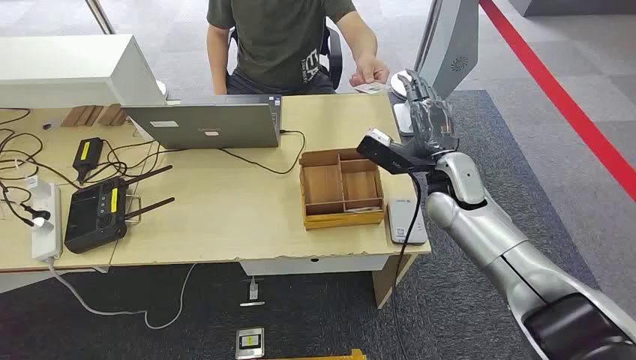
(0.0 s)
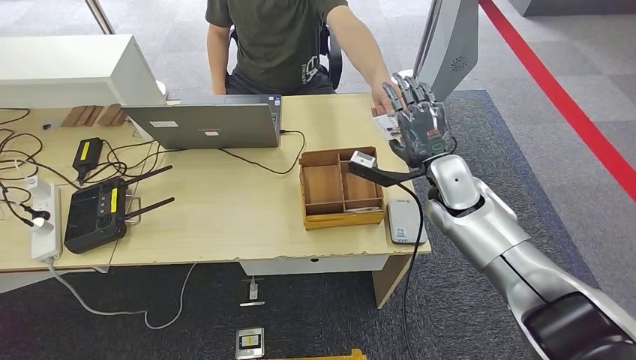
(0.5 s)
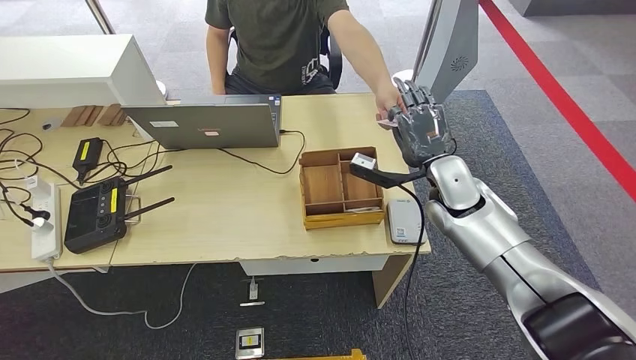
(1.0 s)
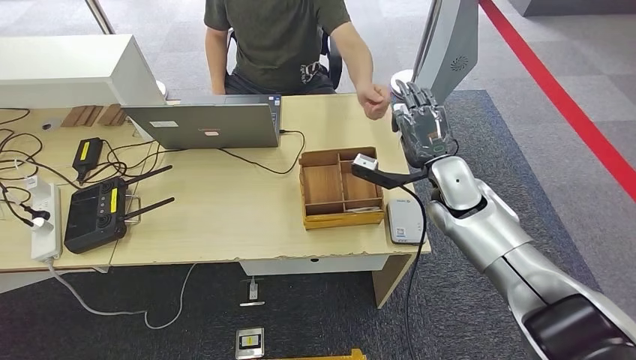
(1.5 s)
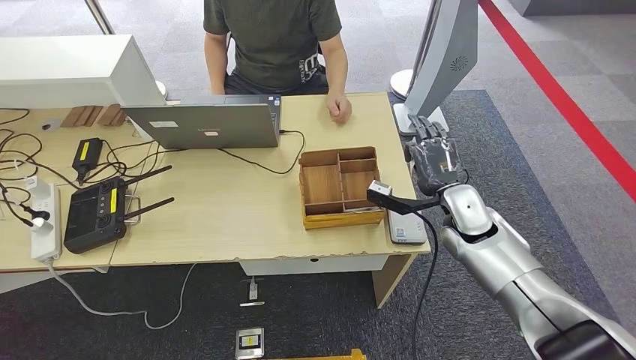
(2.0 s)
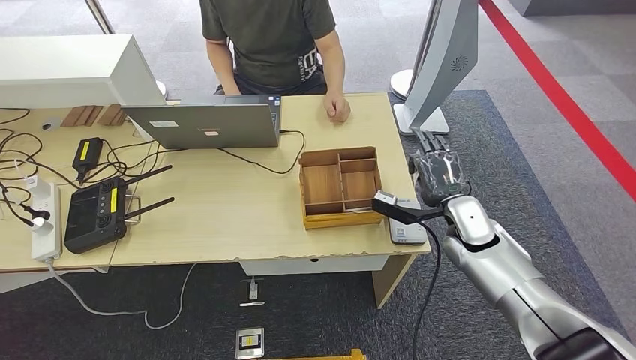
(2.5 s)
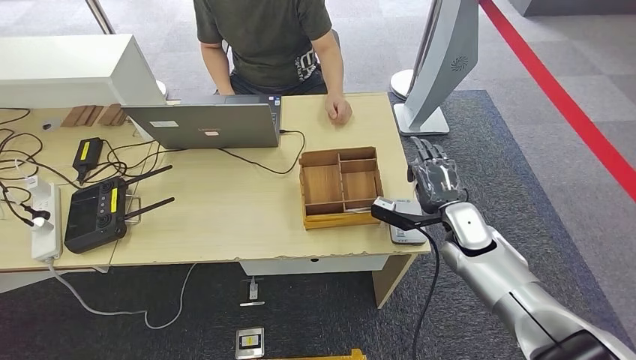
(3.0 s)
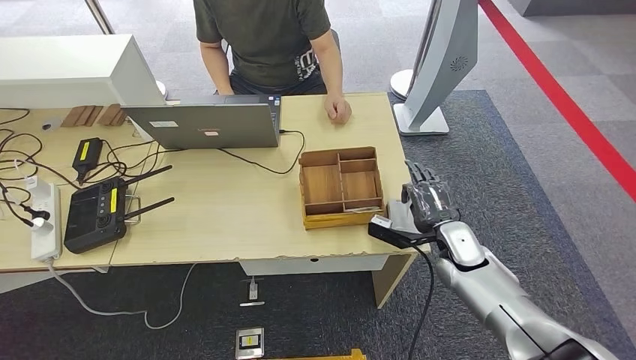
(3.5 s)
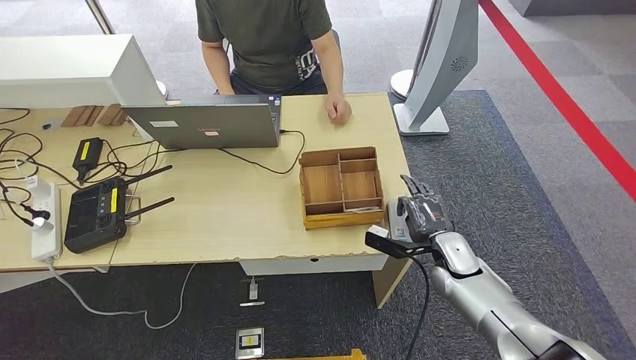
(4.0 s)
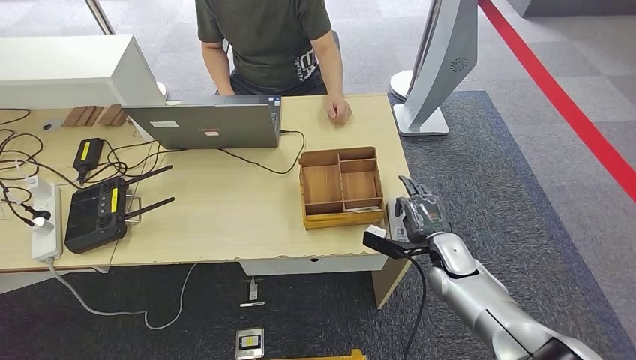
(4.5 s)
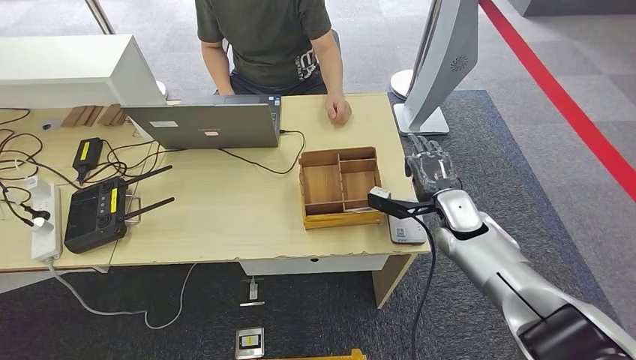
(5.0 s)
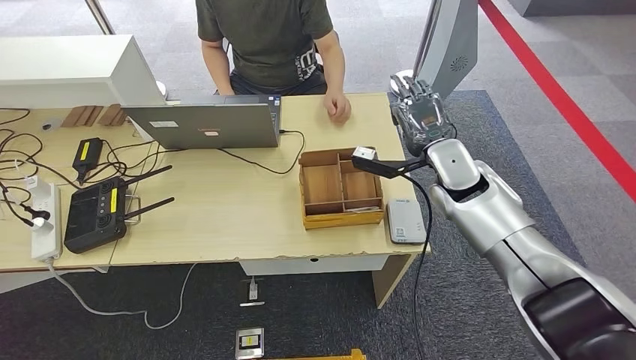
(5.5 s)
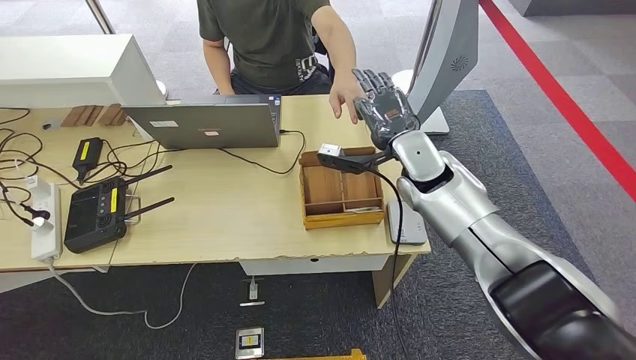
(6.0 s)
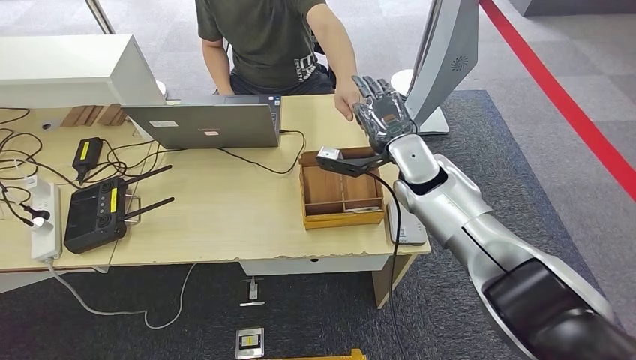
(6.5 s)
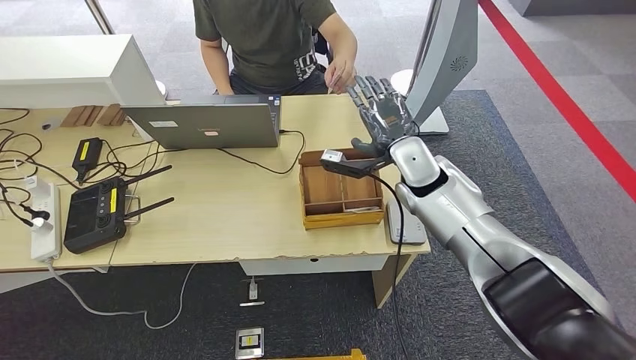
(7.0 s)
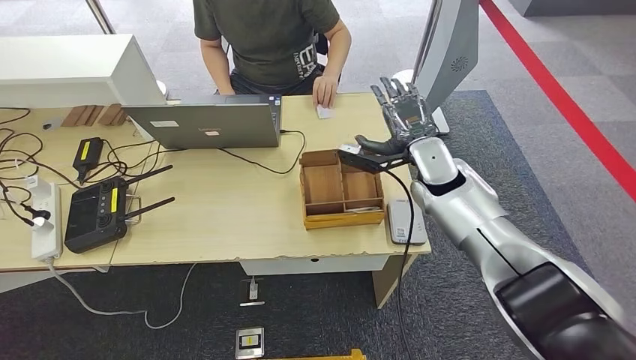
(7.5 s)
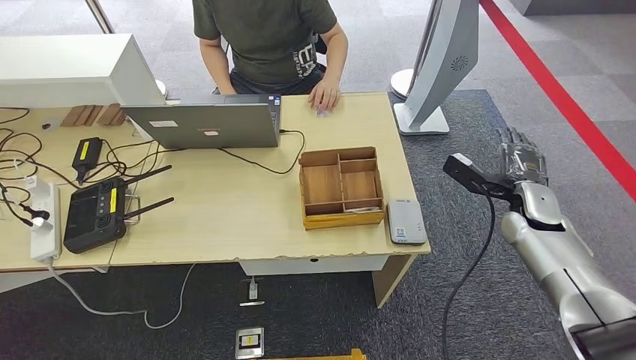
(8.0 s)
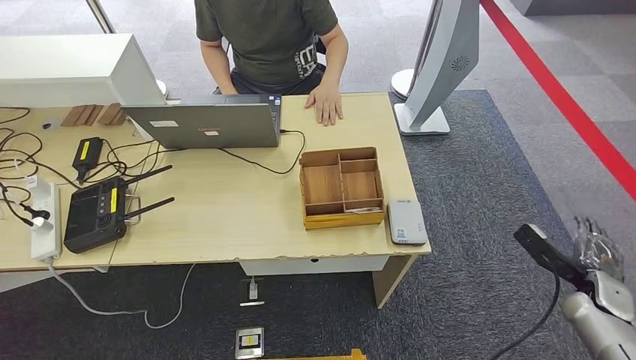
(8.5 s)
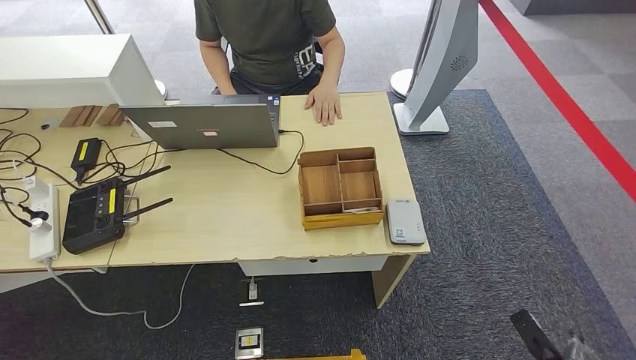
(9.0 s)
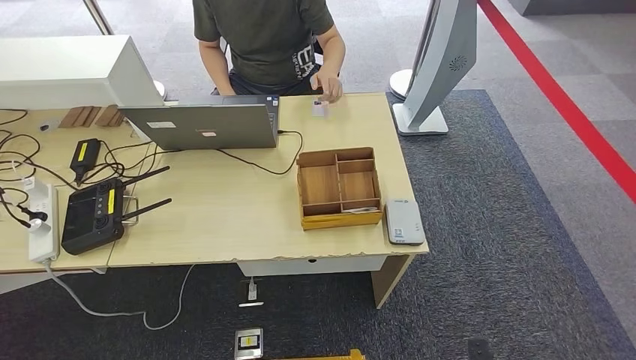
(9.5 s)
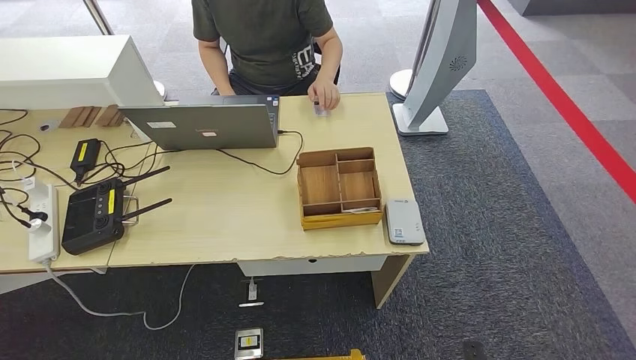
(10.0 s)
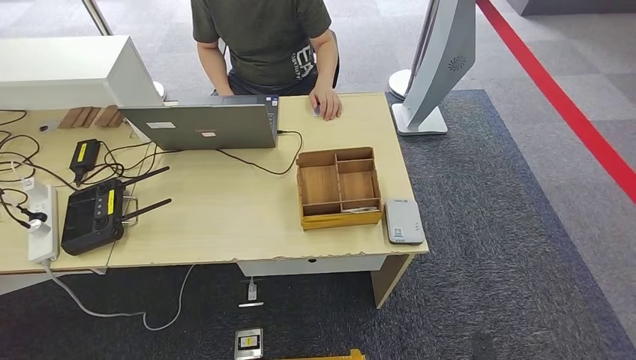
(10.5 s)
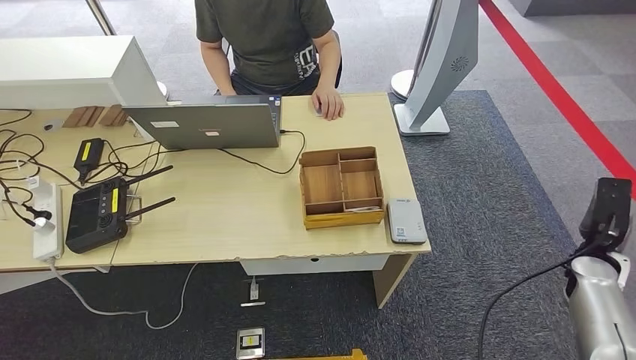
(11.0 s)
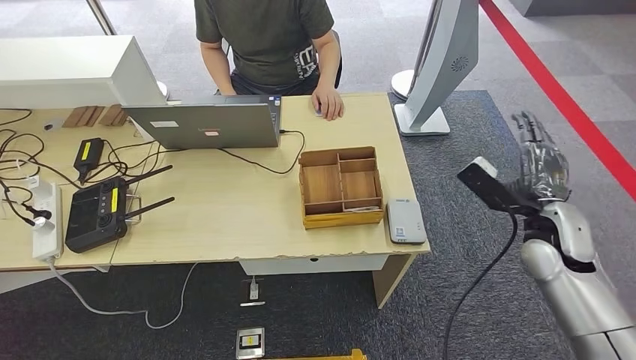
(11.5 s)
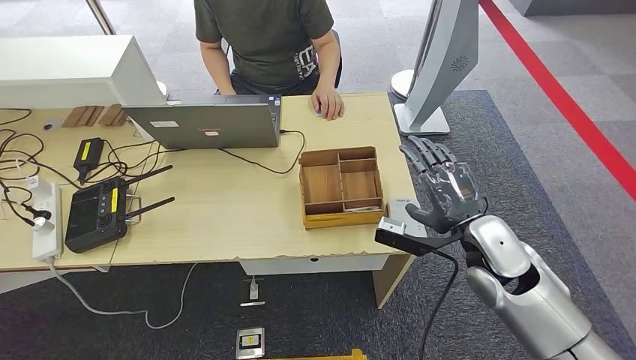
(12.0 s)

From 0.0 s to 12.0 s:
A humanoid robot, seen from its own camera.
Step, from 0.0 s to 1.5 s: Take the ID card from the person's hand.
Step, from 2.0 s to 4.0 s: Place the ID card on the card reader.
Step, from 4.5 s to 7.0 s: Hand the ID card to the person.
From 2.0 s to 4.0 s: The right hand is displaced downward by roughly 10 cm.
From 4.0 s to 6.0 s: The right hand travels upward, forward and to the left by some 25 cm.
From 6.0 s to 8.0 s: The right hand is displaced to the right by some 20 cm.
From 8.0 s to 10.0 s: The right hand travels backward and downward by approximately 40 cm.
From 10.0 s to 12.0 s: The right hand is displaced upward and forward by about 40 cm.

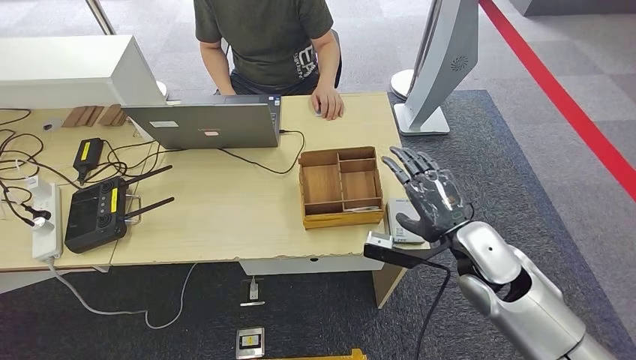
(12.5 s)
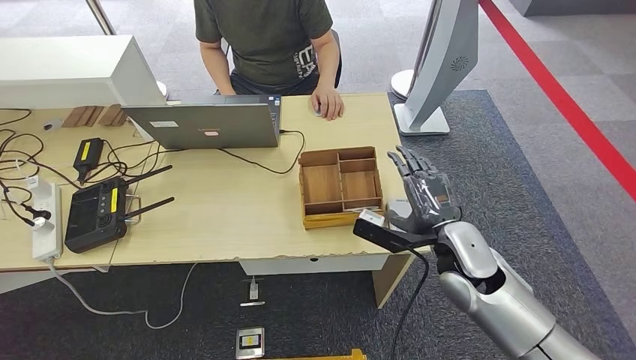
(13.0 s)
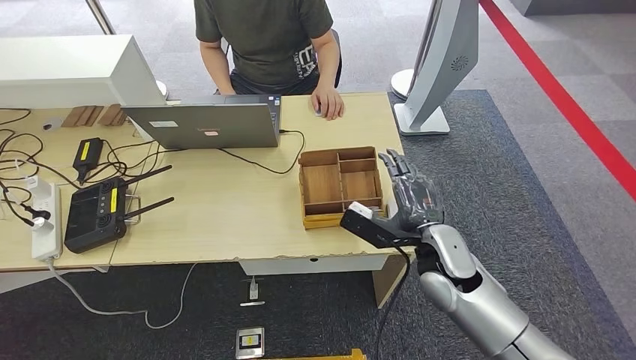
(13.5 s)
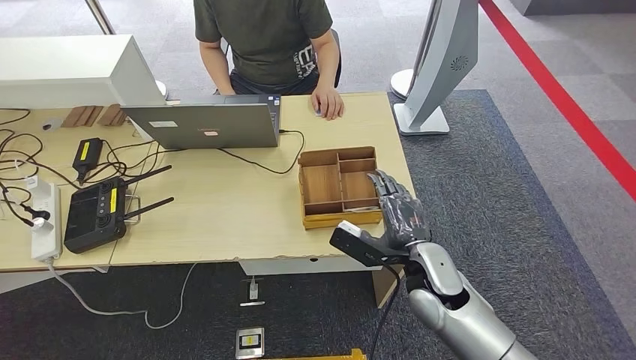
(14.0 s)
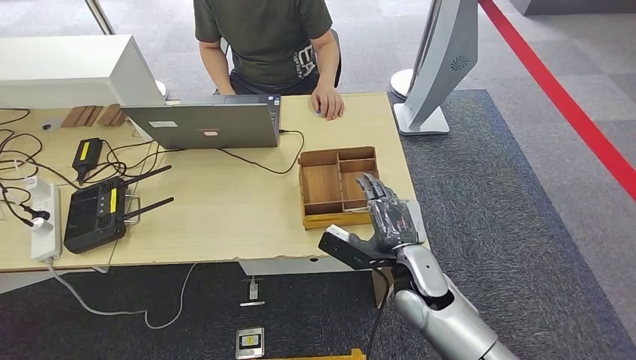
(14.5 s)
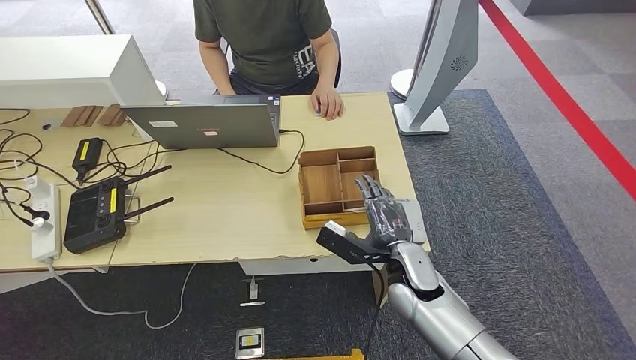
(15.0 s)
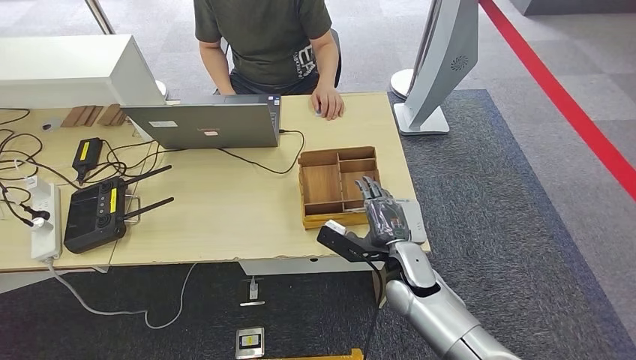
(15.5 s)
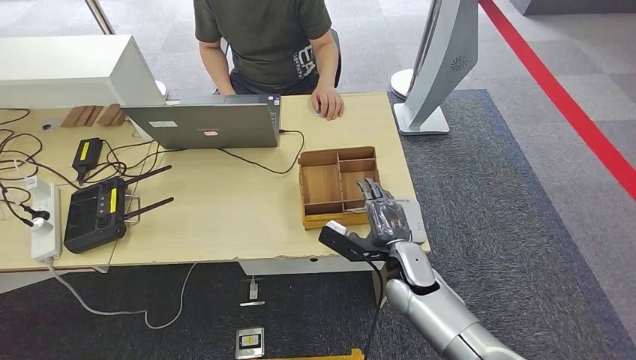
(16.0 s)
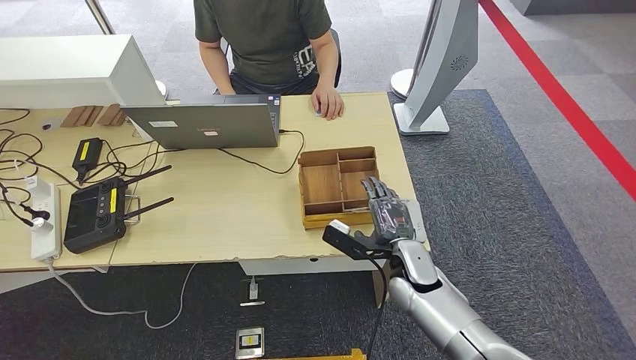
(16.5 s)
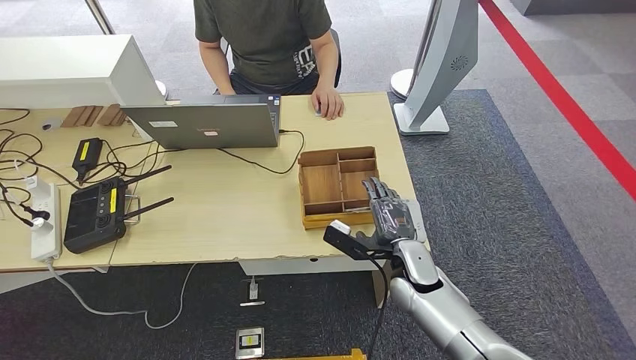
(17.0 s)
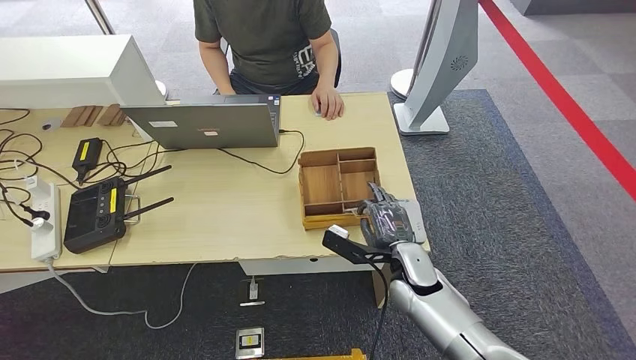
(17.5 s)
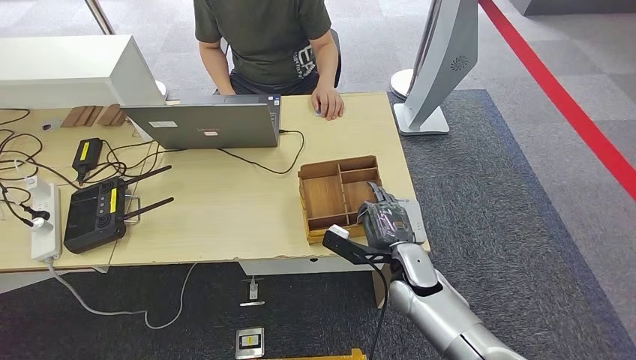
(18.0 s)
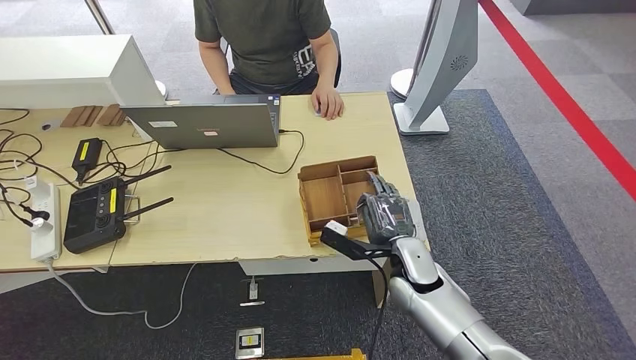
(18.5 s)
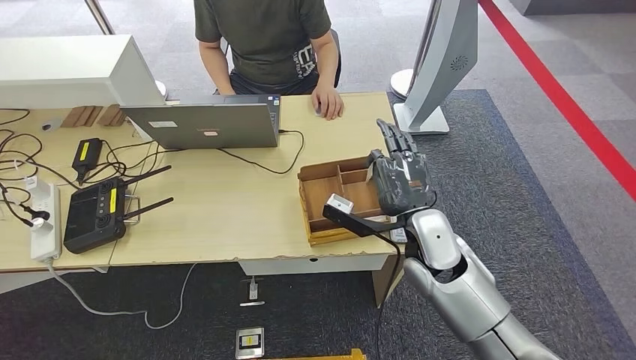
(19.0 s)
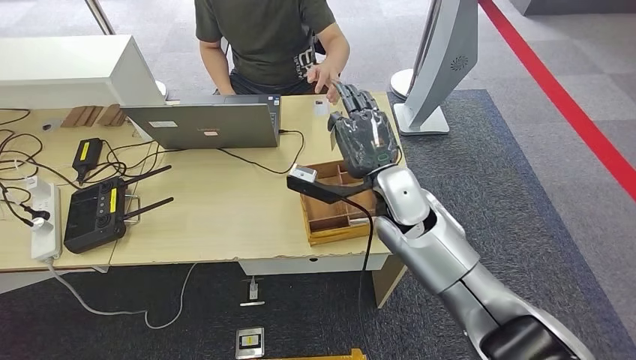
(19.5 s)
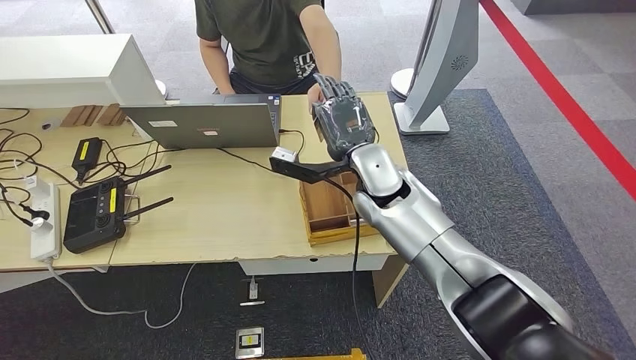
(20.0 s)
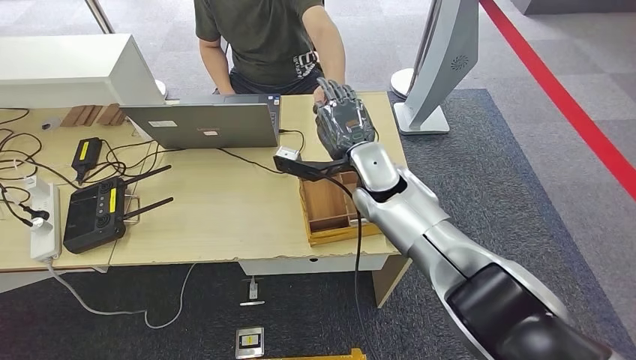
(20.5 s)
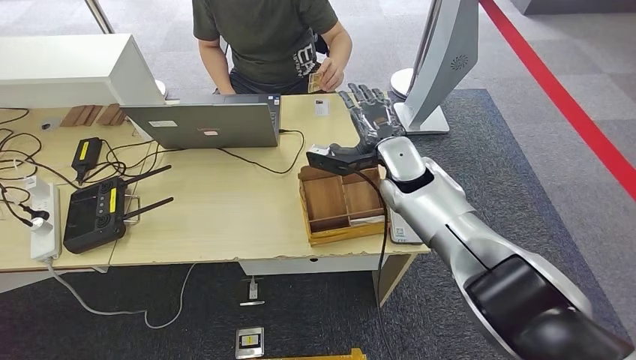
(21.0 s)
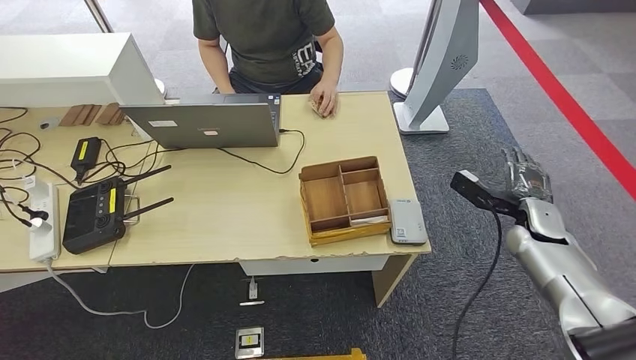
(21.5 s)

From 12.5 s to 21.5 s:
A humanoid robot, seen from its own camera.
Step, from 12.5 s to 18.0 s: Pick up the room key from the key card box.
Step, from 18.5 s to 21.5 s: Hand the room key to the person.
From 12.5 s to 14.5 s: The right hand moves to the left and downward, roughly 10 cm.
From 14.5 s to 17.0 s: The right hand moves some 5 cm.
From 17.0 s to 19.5 s: The right hand moves upward, roughly 15 cm.
From 19.5 s to 21.5 s: The right hand moves to the right, about 30 cm.
